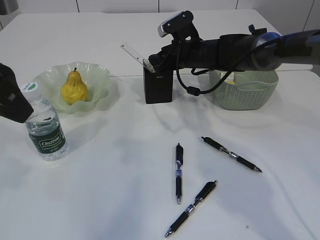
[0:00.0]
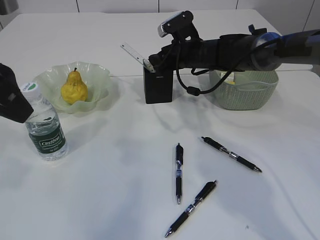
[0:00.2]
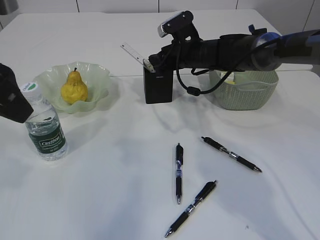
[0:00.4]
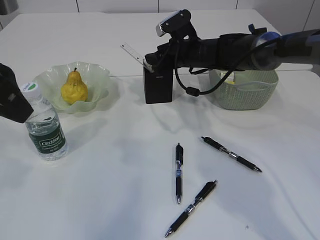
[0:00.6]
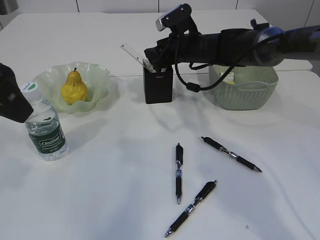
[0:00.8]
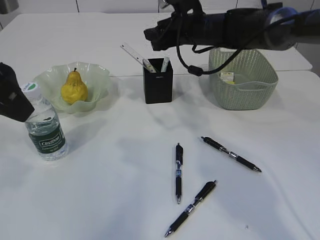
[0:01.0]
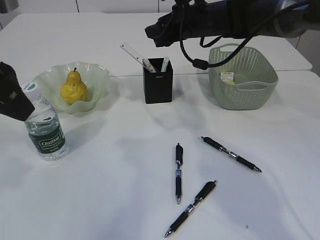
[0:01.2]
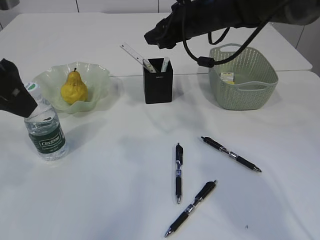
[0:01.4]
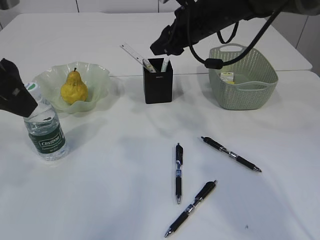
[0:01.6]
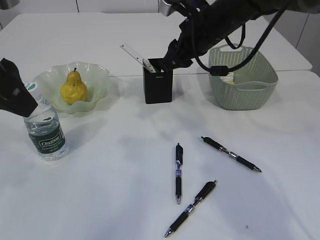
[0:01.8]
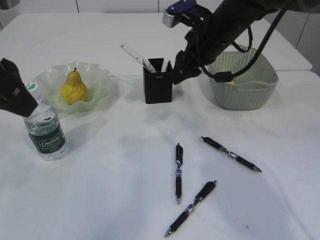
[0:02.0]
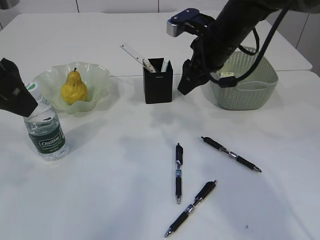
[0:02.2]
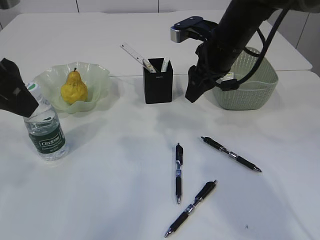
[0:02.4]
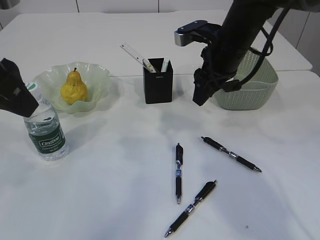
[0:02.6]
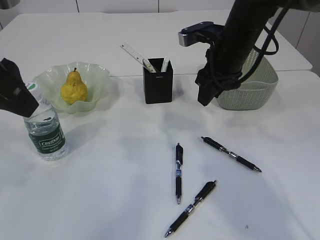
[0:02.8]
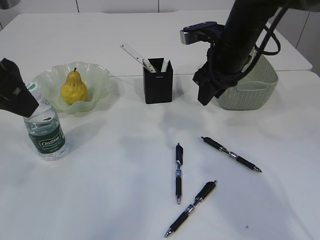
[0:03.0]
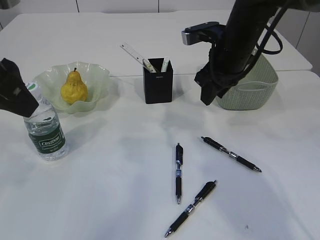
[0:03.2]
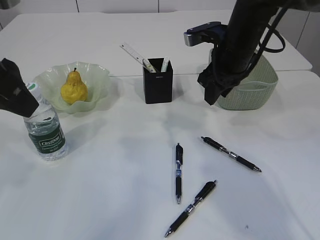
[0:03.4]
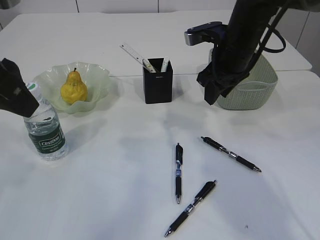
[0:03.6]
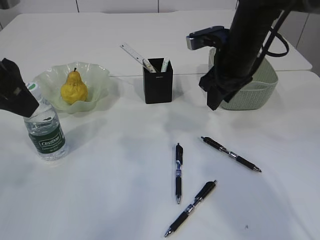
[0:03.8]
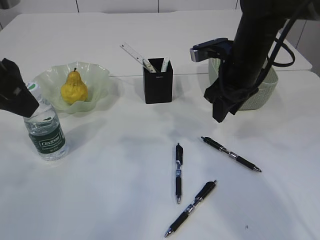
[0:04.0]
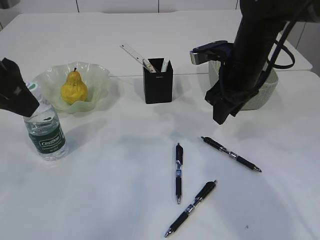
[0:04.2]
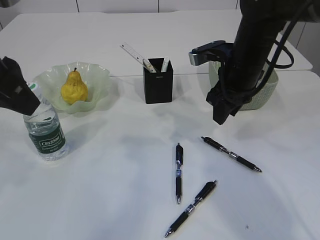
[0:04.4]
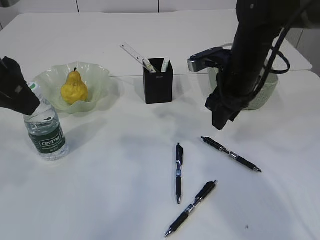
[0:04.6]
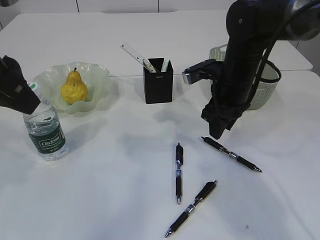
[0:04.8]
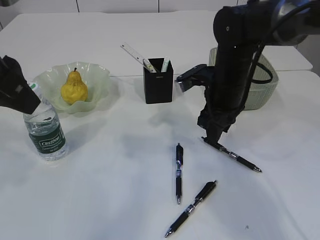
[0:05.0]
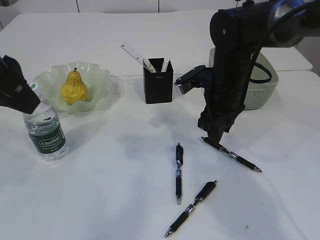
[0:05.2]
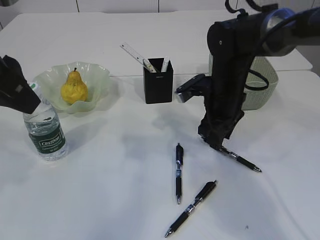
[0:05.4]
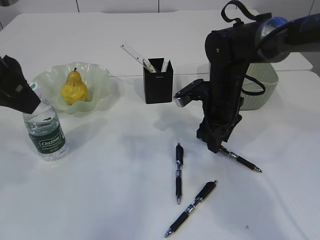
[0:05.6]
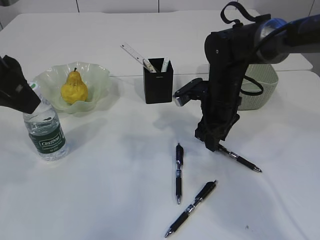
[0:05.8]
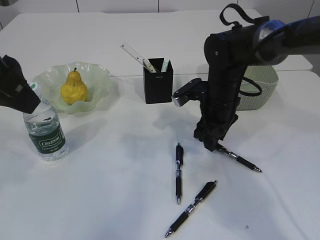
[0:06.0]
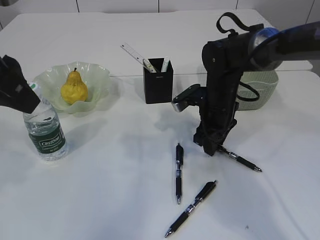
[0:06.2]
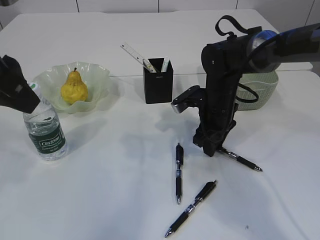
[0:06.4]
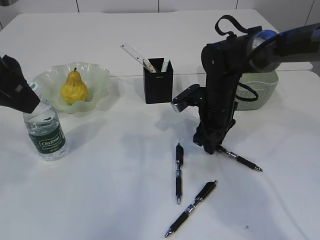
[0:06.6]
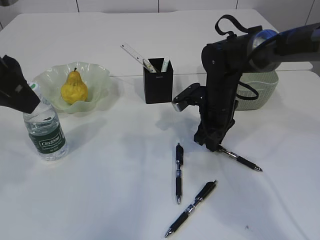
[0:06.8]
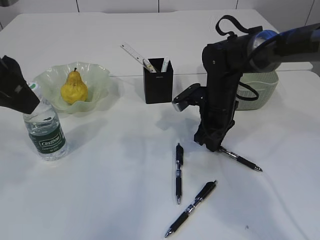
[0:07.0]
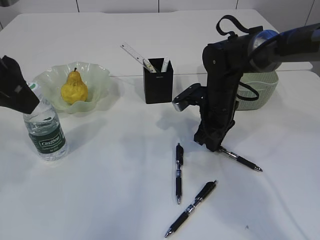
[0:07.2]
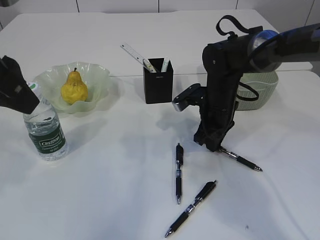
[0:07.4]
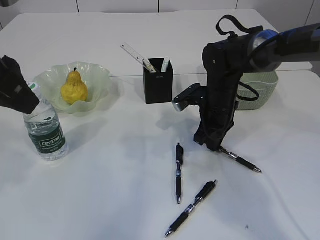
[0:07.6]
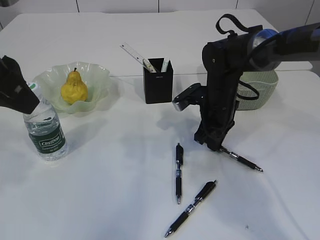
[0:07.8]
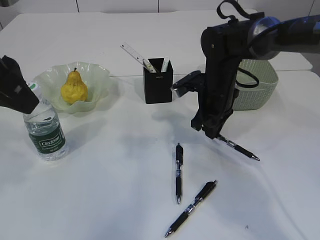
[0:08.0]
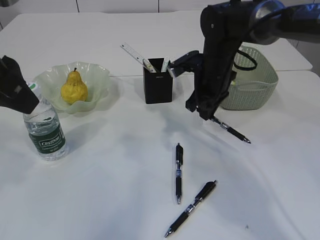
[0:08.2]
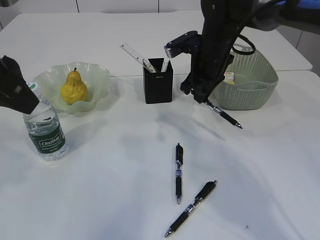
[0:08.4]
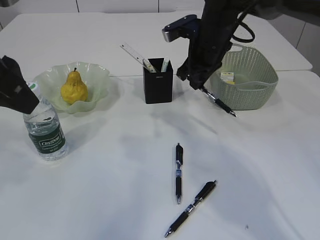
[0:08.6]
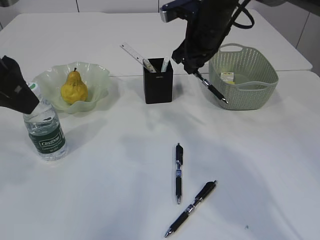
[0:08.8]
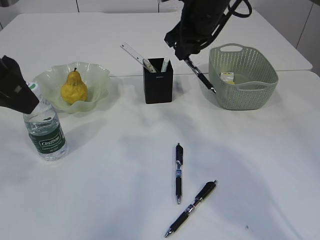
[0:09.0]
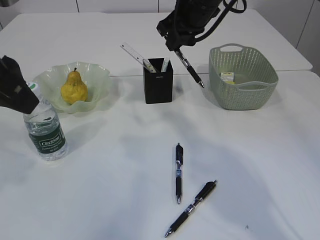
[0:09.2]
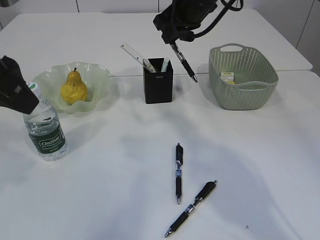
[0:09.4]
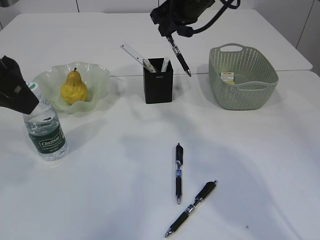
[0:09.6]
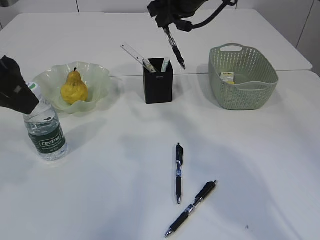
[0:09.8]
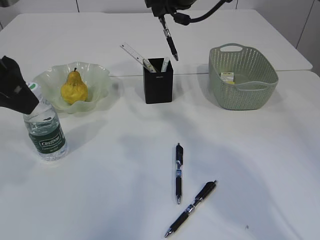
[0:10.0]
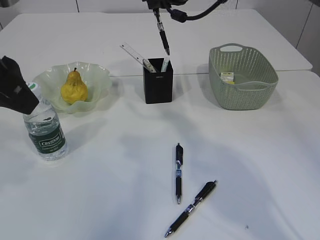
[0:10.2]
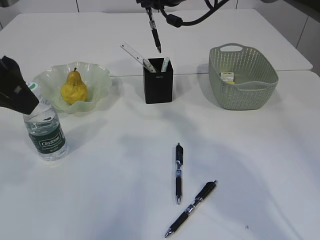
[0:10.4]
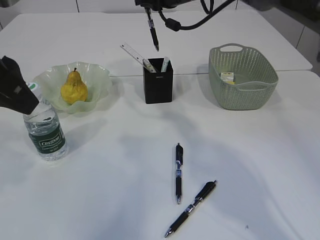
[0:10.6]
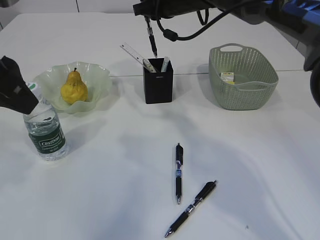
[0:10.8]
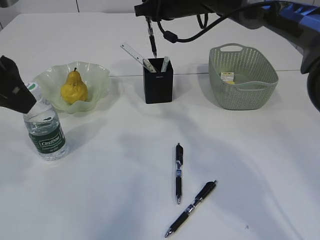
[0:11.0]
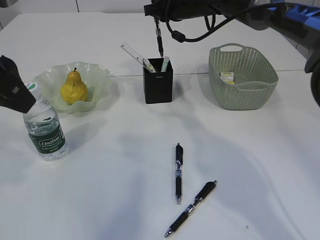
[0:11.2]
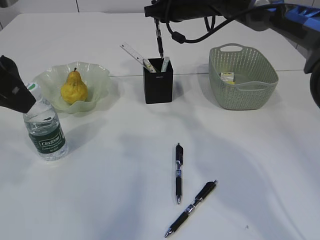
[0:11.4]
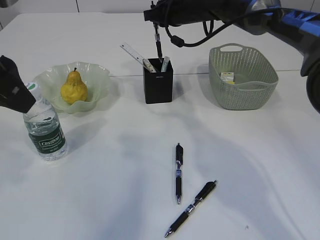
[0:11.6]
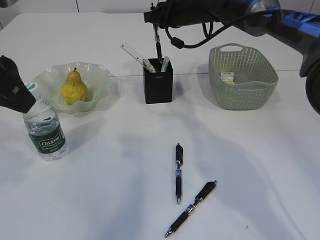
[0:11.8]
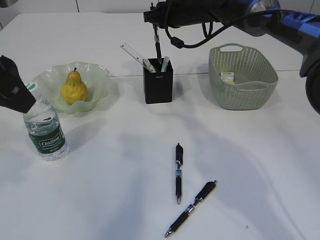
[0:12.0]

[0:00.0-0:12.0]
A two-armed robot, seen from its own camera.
Step, 0:01.2 to 0:08.6: Pick up the pen with right arm.
0:00.0 to 0:01.6: The right gripper travels upward and backward by some 10 cm.
0:01.6 to 0:03.0: The right gripper changes place by roughly 5 cm.
0:03.0 to 0:04.4: The grippers stay close to where they were, moving slightly.
0:04.4 to 0:06.0: The right gripper travels downward by roughly 10 cm.
0:06.0 to 0:07.6: The right gripper closes its fingers.
0:07.6 to 0:09.0: The right gripper travels upward by roughly 15 cm.
0:09.0 to 0:10.4: The right gripper moves some 5 cm.
0:10.4 to 0:12.0: The right gripper is displaced downward by some 5 cm.

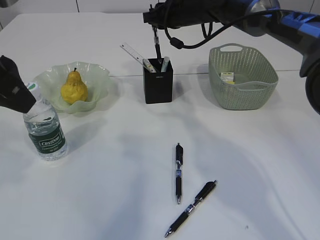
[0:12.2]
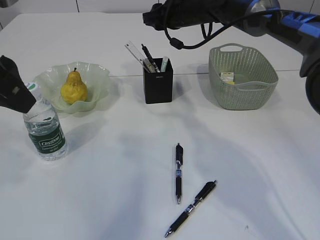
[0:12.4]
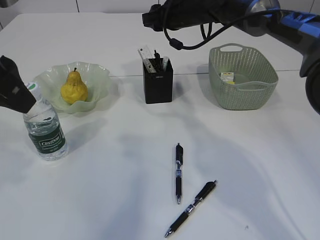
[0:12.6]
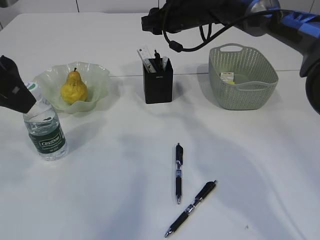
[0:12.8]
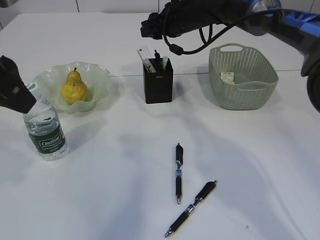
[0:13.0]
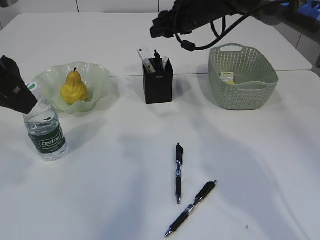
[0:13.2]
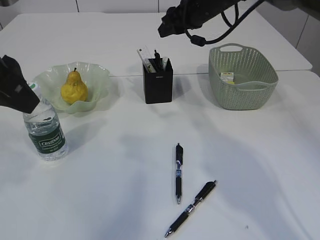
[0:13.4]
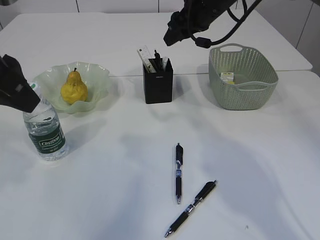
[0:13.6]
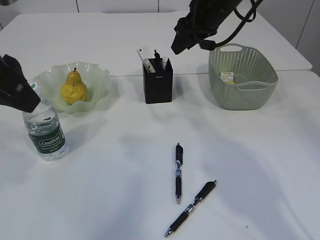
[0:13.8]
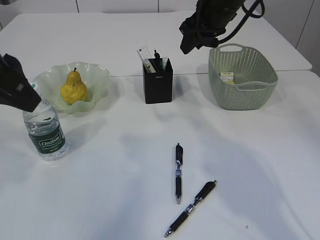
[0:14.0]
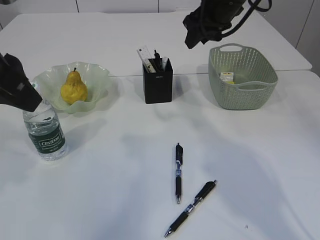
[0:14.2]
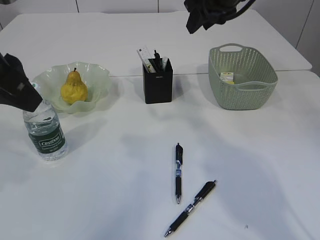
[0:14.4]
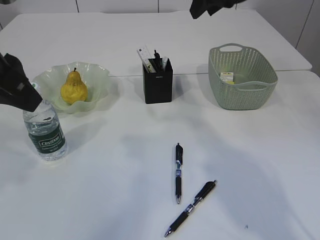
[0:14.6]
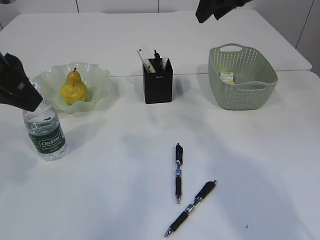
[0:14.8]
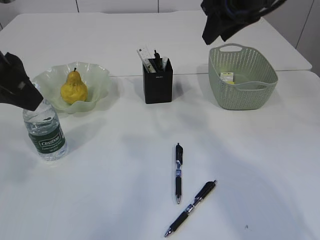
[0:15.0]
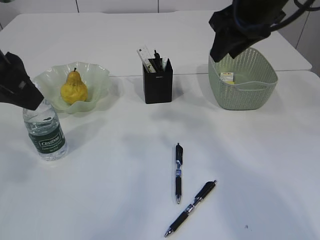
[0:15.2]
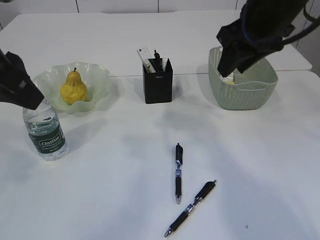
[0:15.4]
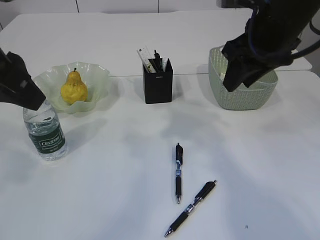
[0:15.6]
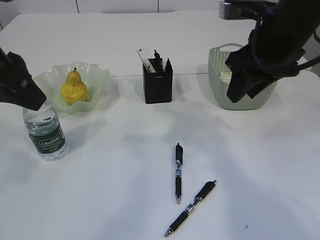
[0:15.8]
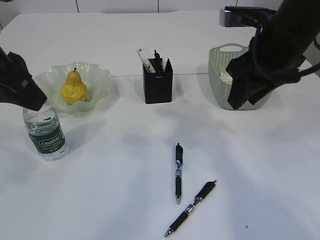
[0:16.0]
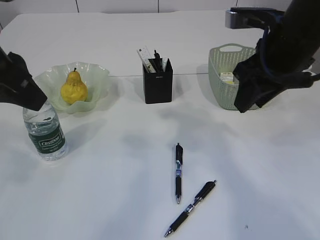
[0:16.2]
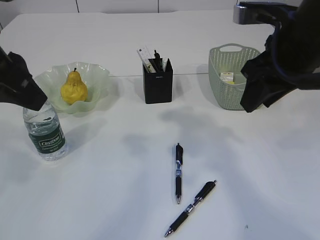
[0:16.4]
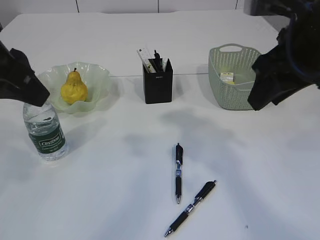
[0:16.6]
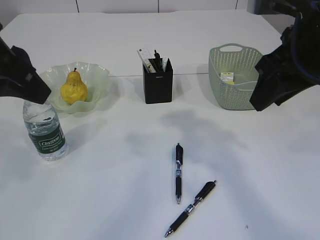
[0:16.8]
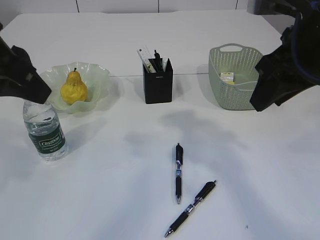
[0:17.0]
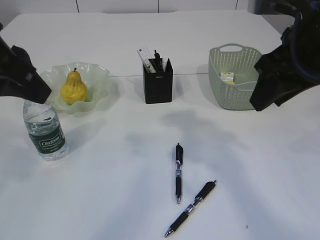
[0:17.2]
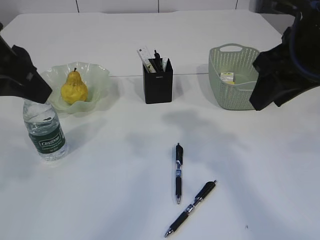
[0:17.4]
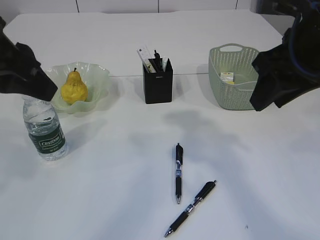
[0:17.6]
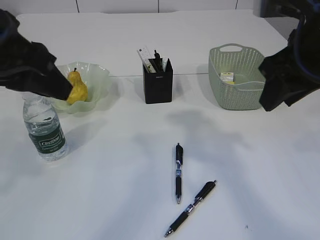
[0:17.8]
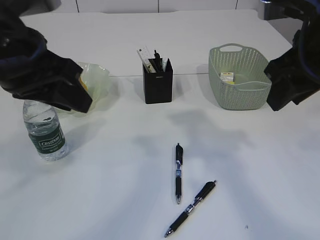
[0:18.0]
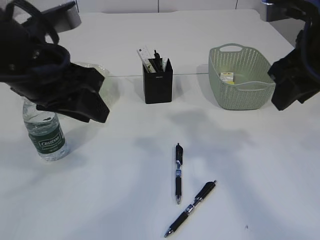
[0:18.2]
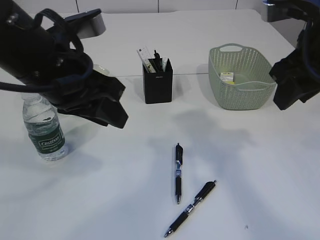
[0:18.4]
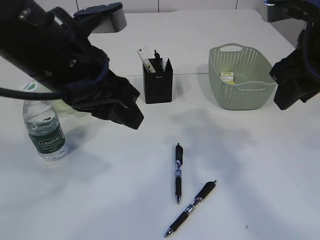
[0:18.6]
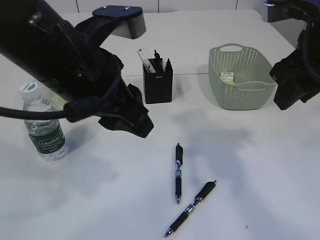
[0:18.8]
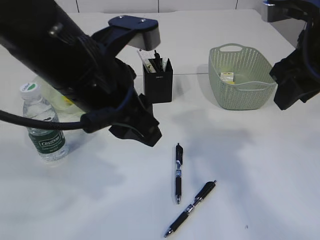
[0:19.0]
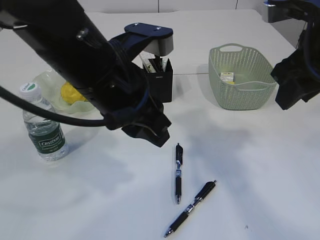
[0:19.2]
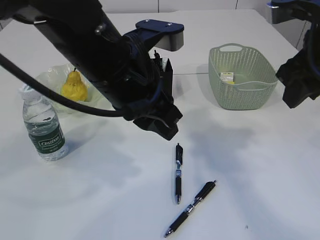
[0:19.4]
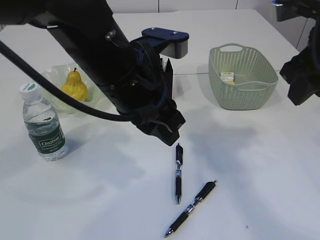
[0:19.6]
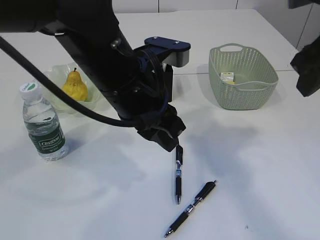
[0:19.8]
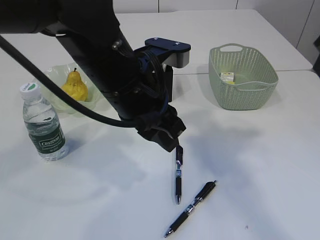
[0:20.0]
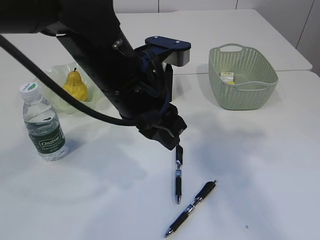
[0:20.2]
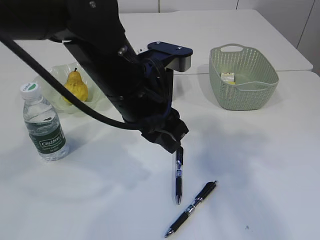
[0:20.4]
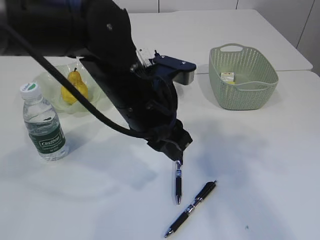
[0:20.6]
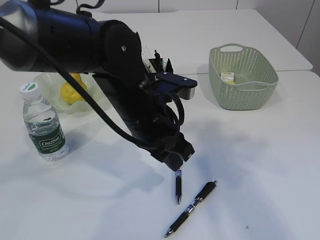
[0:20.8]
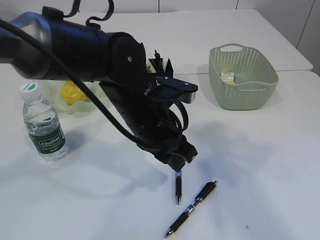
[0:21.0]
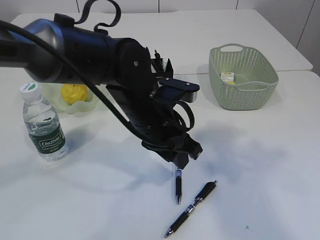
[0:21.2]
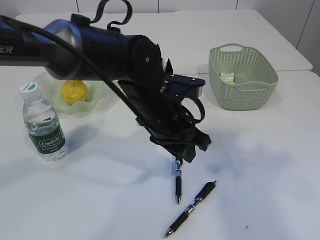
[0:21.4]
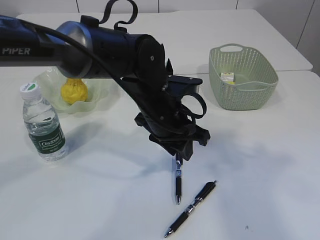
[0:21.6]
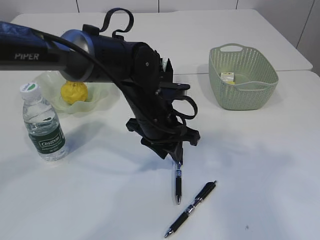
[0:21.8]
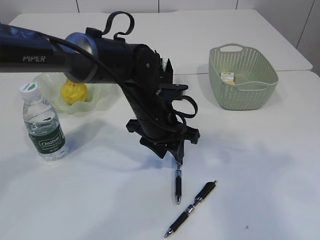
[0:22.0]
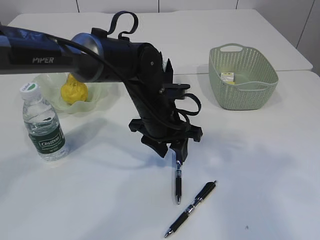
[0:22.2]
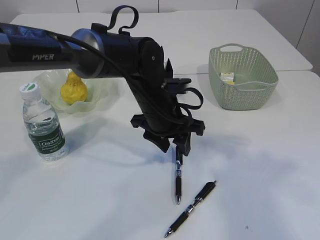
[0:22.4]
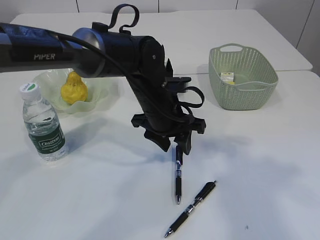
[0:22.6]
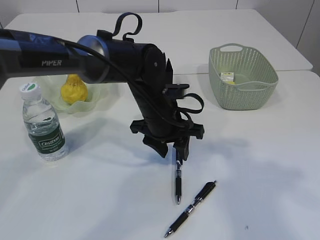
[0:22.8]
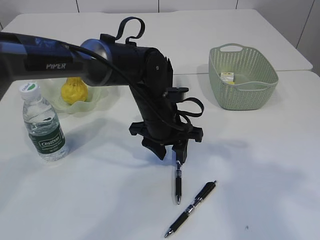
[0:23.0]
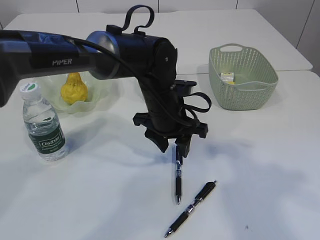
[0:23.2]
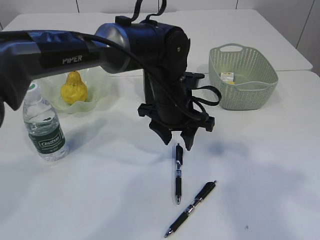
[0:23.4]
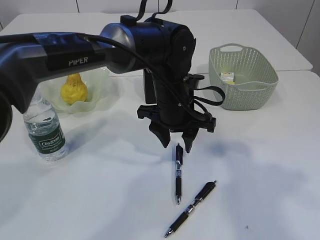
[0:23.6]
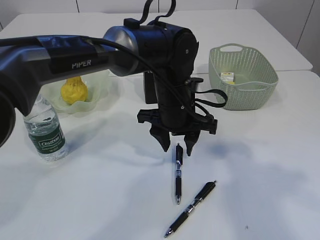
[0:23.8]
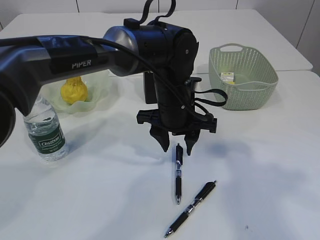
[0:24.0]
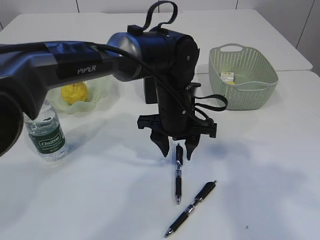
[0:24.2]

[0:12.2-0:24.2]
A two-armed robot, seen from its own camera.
0:12.2 to 0:13.8: The right gripper is displaced backward by approximately 5 cm, and opens up.
0:13.8 to 0:15.2: The right gripper heads backward, covering approximately 10 cm.
0:15.2 to 0:16.6: The right gripper shifts about 10 cm backward.
0:16.6 to 0:18.2: The left gripper goes roughly 5 cm downward.
0:18.2 to 0:19.8: The left gripper travels to the right by about 10 cm.
0:19.8 to 0:21.2: The left gripper heads downward, covering about 10 cm, while the right gripper shifts approximately 15 cm backward and upward.
0:21.2 to 0:22.6: The left gripper goes some 5 cm forward.
0:22.6 to 0:24.2: The grippers make only small movements.
